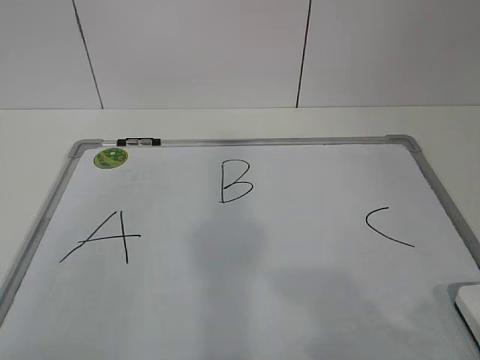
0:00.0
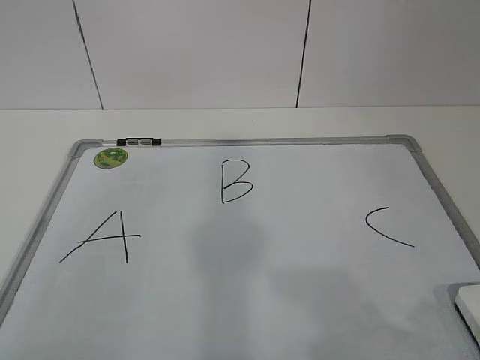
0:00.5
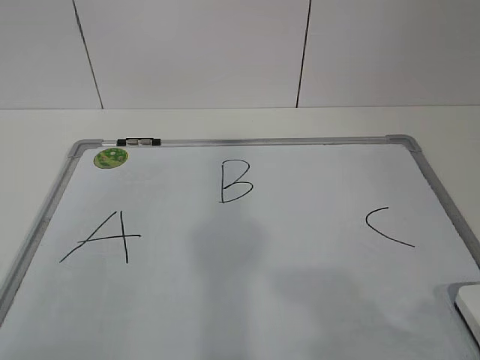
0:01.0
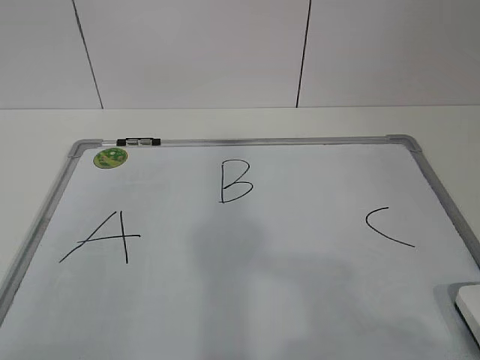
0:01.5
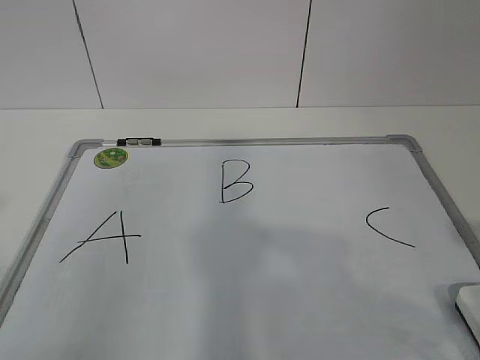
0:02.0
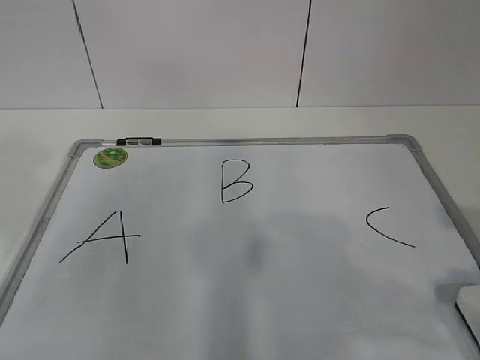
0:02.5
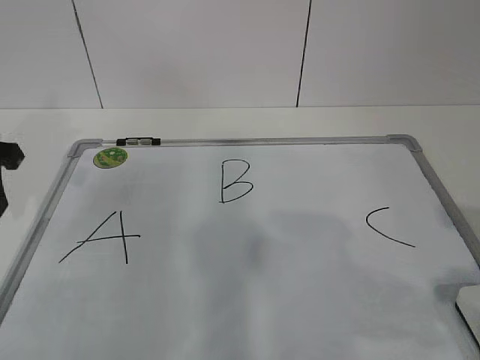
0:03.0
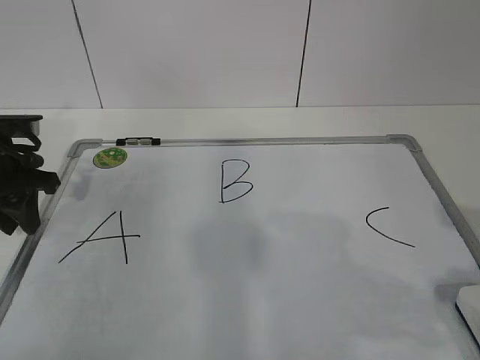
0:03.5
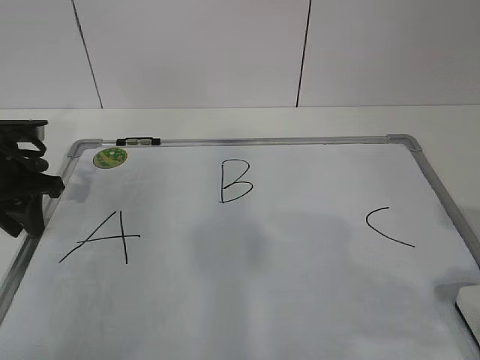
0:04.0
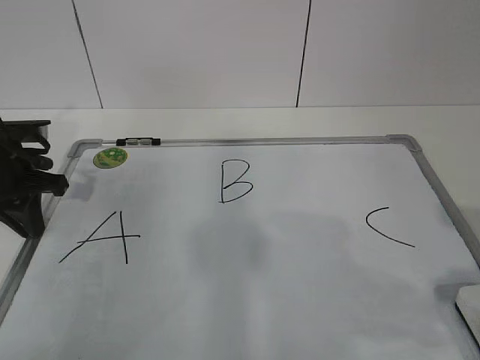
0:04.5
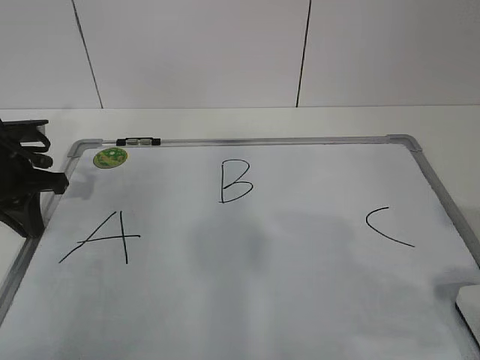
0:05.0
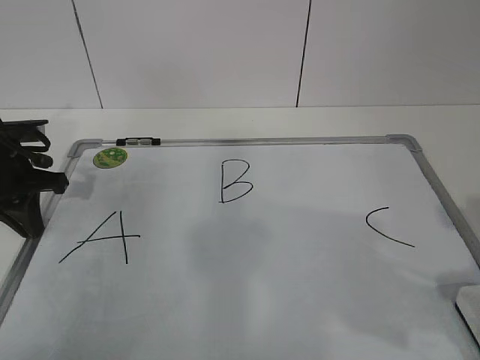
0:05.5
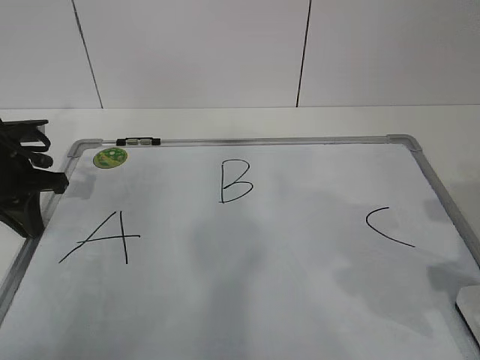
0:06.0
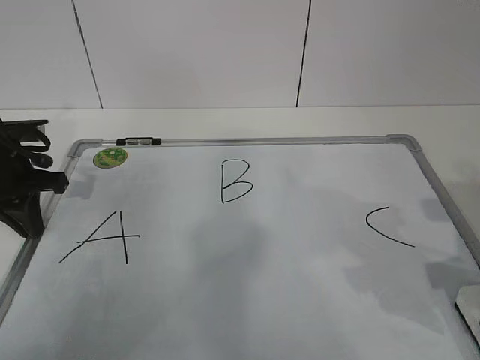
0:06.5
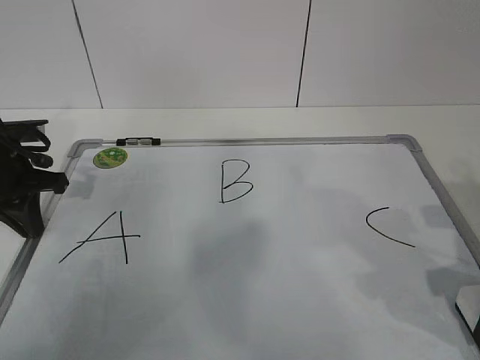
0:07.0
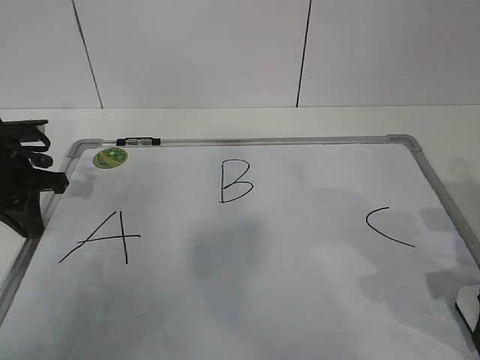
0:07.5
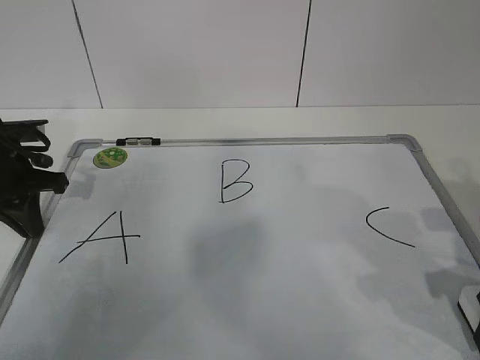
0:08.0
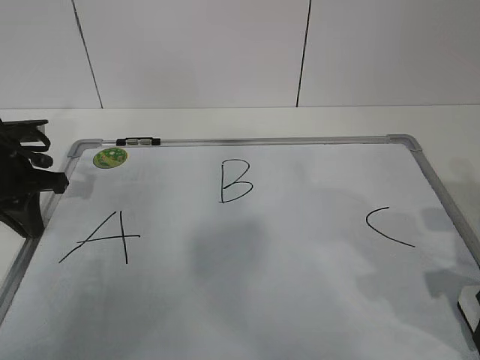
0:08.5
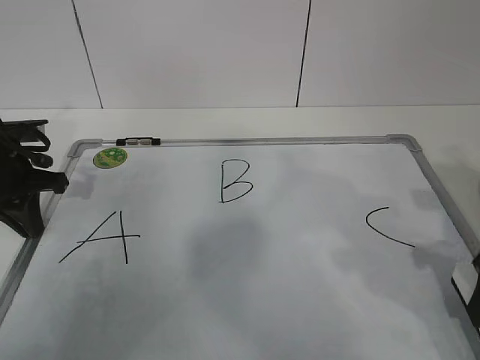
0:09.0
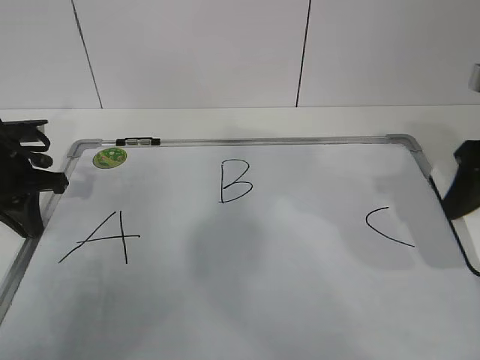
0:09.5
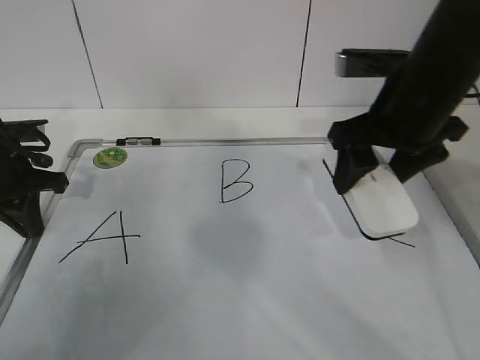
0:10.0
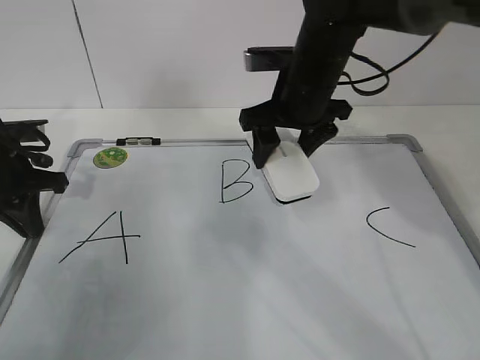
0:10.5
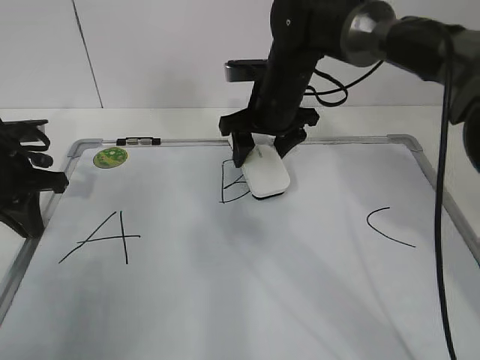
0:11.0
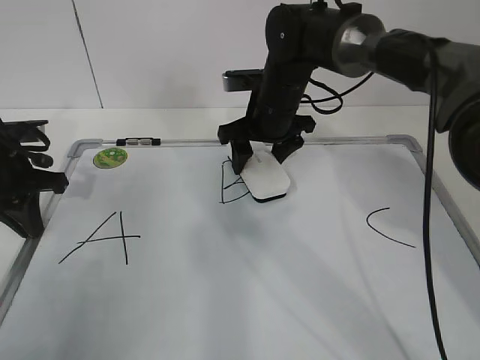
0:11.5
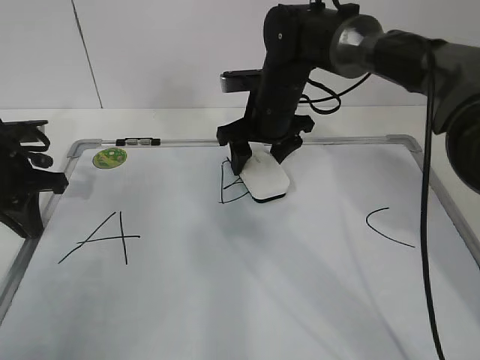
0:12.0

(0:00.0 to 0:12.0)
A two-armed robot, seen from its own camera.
Task of the whole recording: pick up the eraser on the blackboard and erase the letter "B".
Step, 0:00.0 - 0:03.5: Hold the drawing board steady with your left hand.
0:02.0 - 0:04.0: The left gripper goes roughly 35 cm forward and downward.
0:04.0 - 0:06.0: The left gripper closes up.
0:08.0 - 0:10.0: The right gripper moves forward, to the left and upward, about 20 cm.
0:10.0 - 0:12.0: The right gripper heads forward, to the left and downward, covering approximately 20 cm.

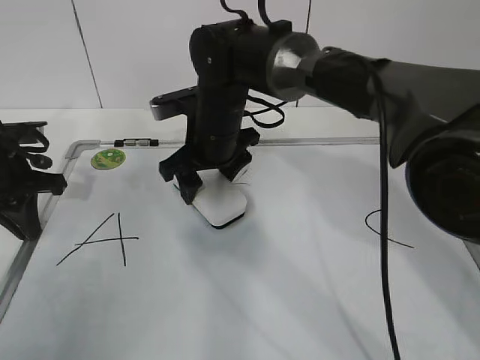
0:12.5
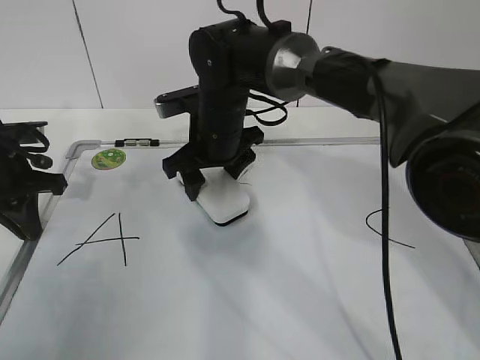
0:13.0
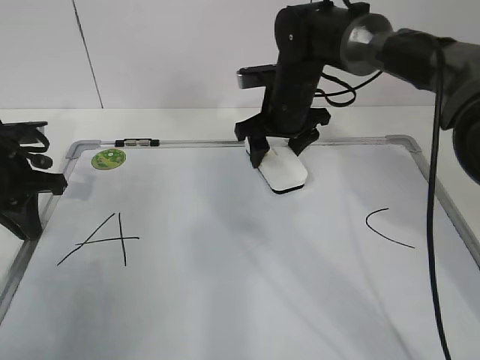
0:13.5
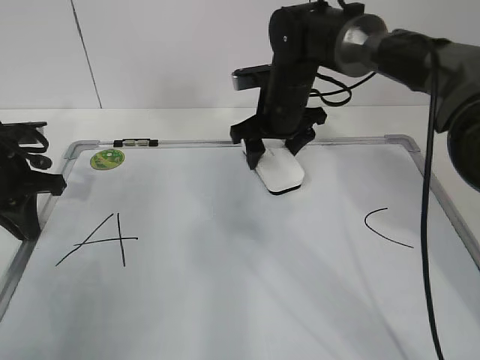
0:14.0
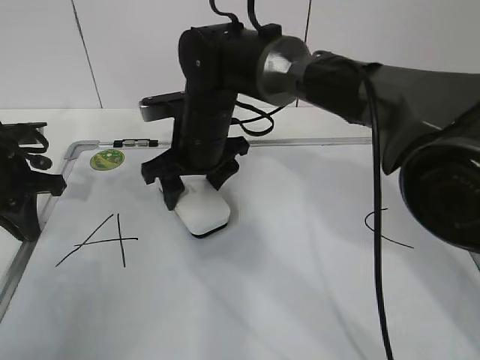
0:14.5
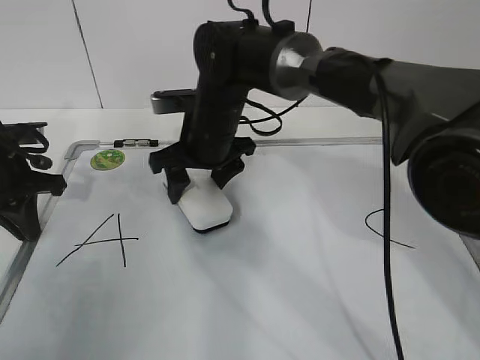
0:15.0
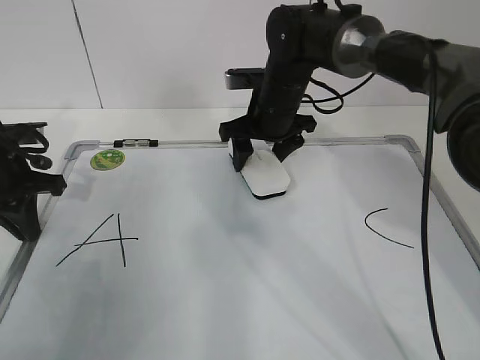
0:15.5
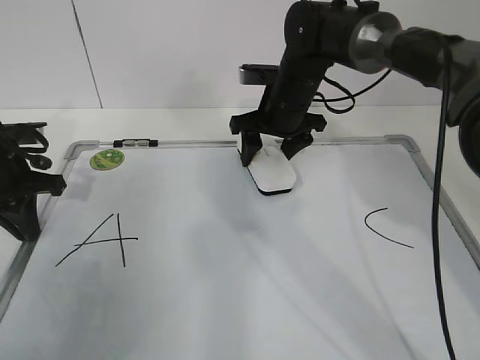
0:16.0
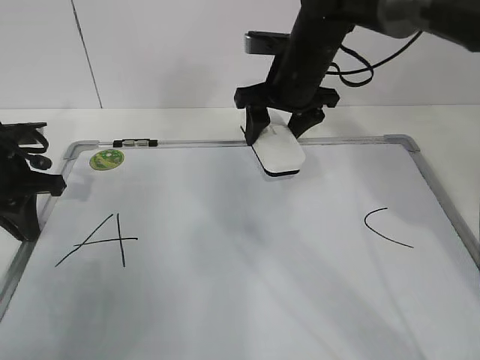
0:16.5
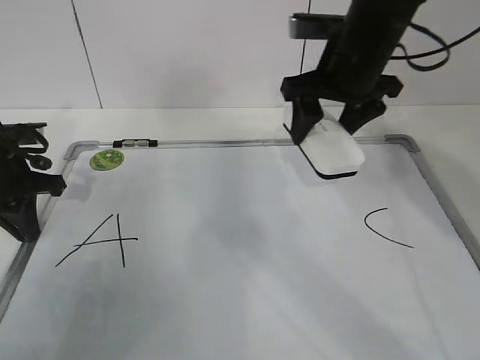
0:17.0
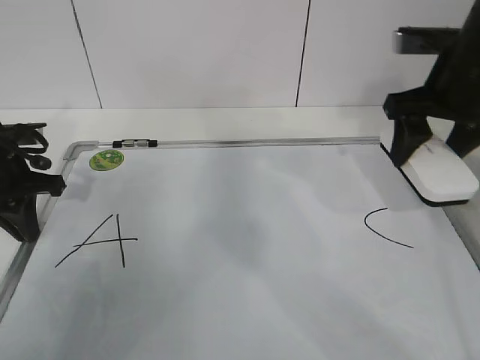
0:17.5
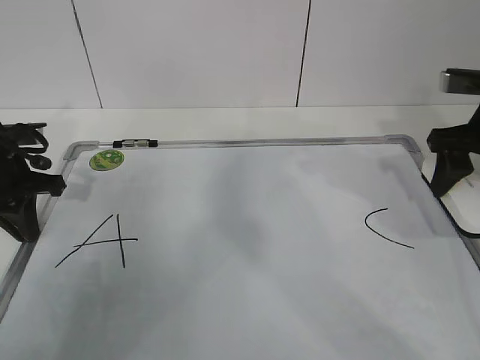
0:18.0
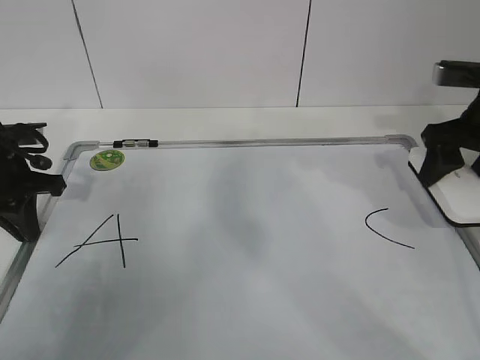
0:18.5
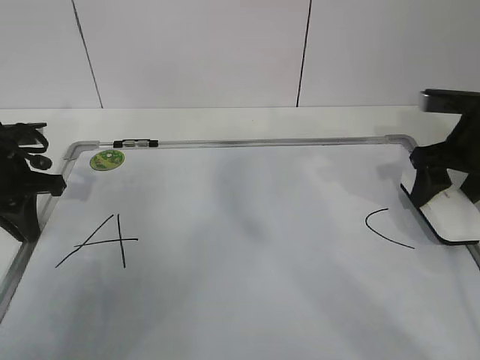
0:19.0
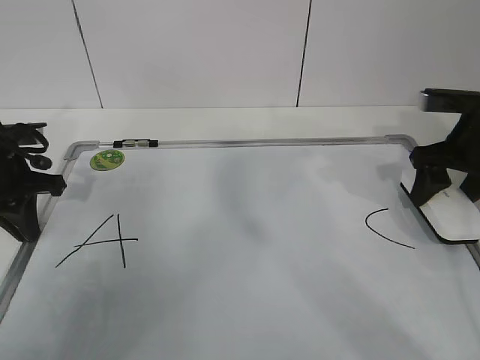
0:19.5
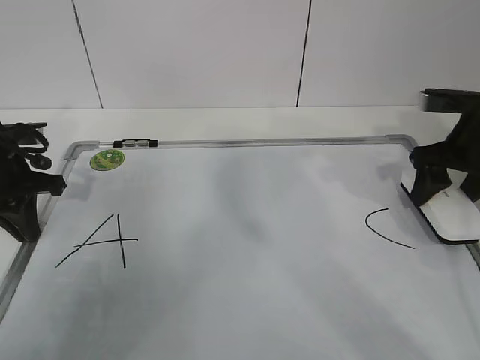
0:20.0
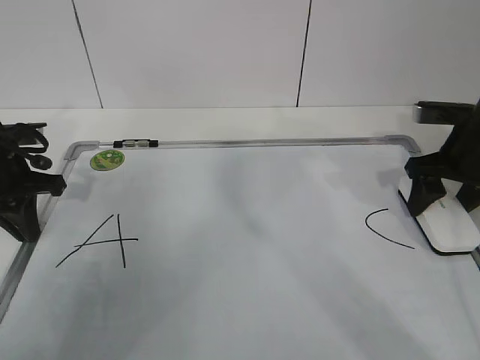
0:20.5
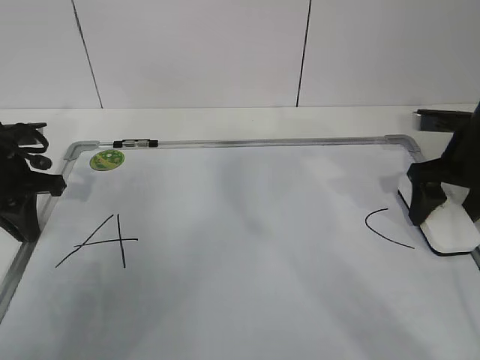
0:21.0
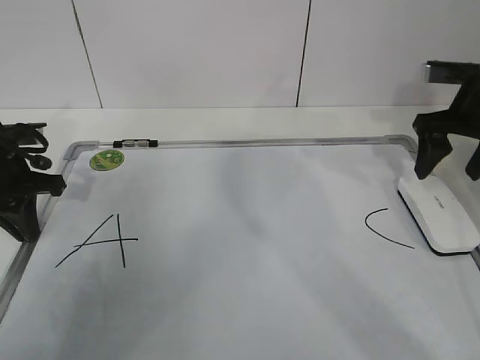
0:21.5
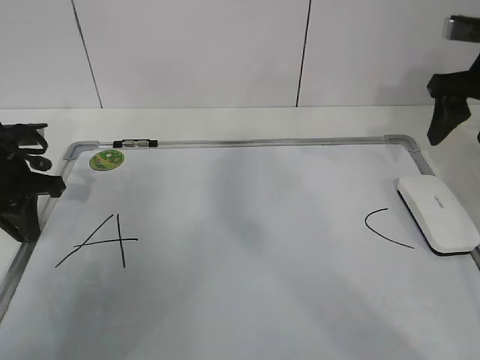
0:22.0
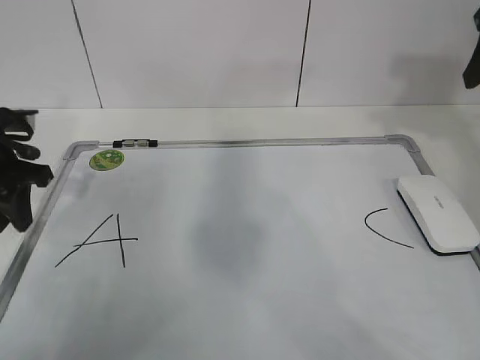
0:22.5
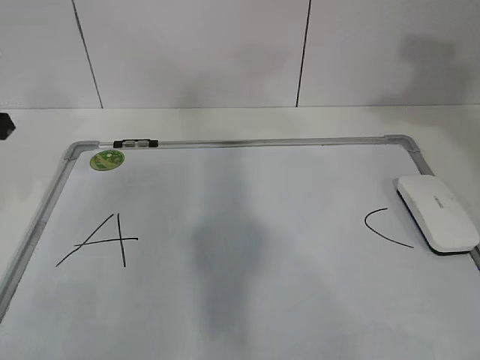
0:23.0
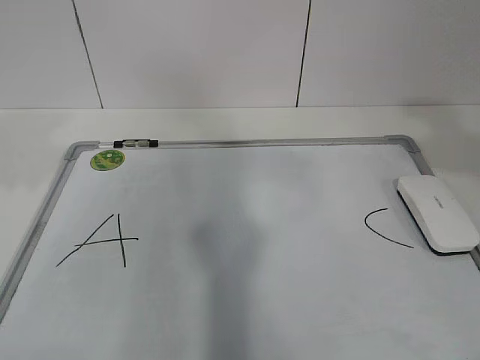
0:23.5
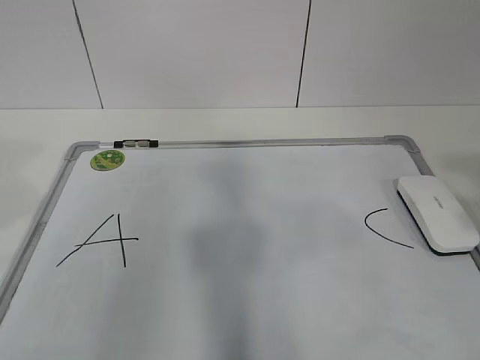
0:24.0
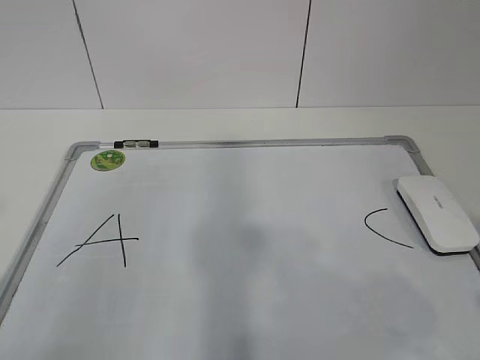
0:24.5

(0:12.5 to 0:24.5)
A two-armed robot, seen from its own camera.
Task of the whole recording: pick up the eraser on the blackboard and erase the letter "B".
Step, 0:13.5 - 0:16.5: Put down the eraser with your right hand.
0:12.5 - 0:14.5: The right gripper goes to the right and returns, some 10 cm each way.
0:14.5 - 0:16.5: The right gripper moves to the right, upward and forward, about 15 cm.
0:16.5 - 0:18.5: The right gripper travels to the right and backward by roughly 20 cm.
0:18.5 - 0:20.5: The right gripper heads downward, covering roughly 5 cm.
0:20.5 - 0:22.5: The right gripper moves upward, some 20 cm, and opens and closes again; the left gripper opens up.
0:22.5 - 0:24.5: The left gripper goes about 30 cm backward and upward. Meanwhile the right gripper moves backward, some 35 cm.

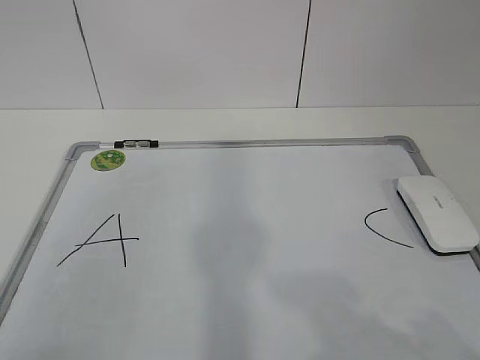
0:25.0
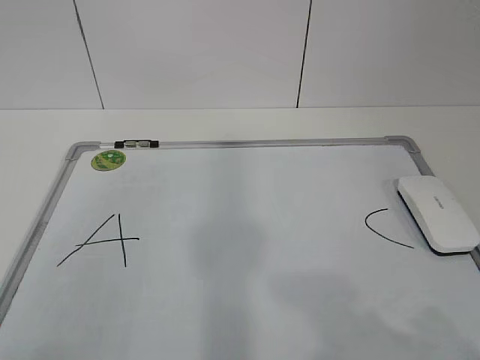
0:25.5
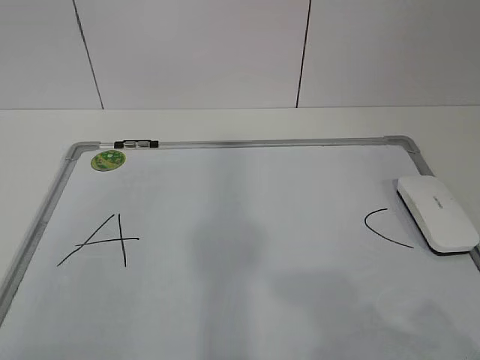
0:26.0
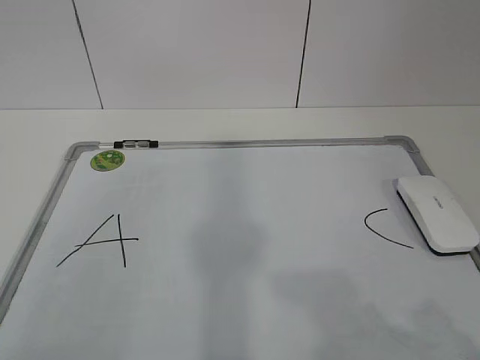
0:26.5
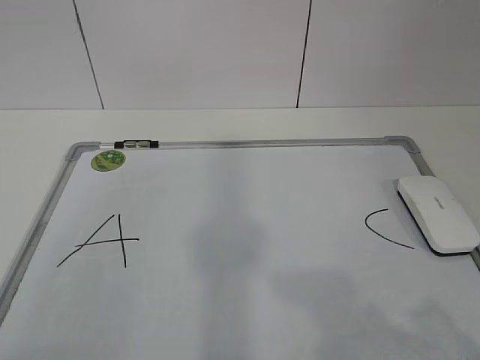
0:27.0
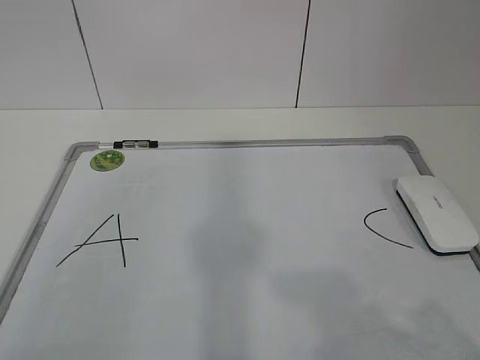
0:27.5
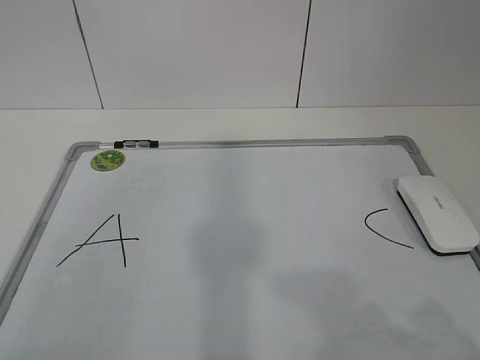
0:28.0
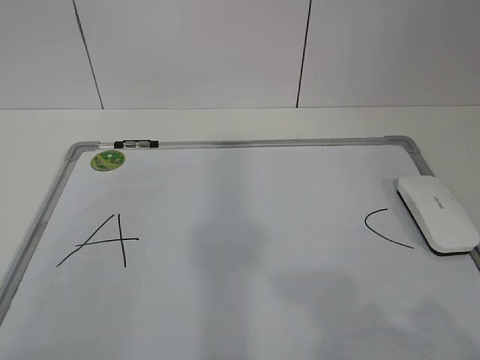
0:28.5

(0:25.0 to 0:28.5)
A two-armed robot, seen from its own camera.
Task of the whole recording: pick up the eraser on the blackboard and erase the letter "B".
0:27.0 - 0:28.5: Both grippers stay about where they are.
